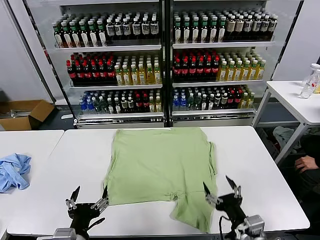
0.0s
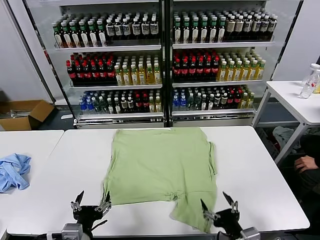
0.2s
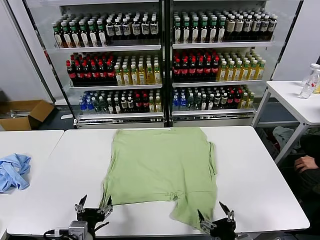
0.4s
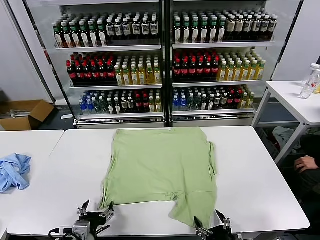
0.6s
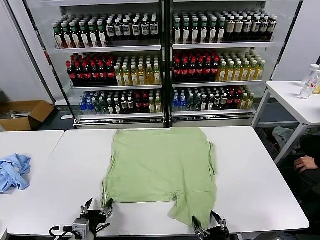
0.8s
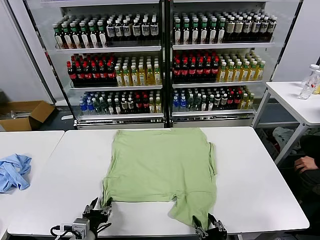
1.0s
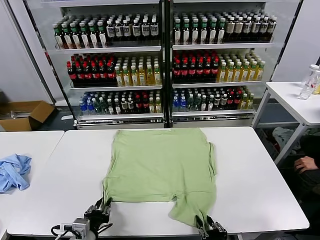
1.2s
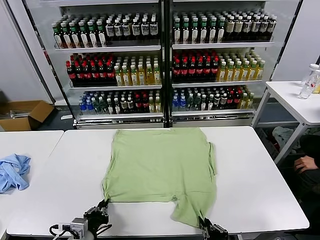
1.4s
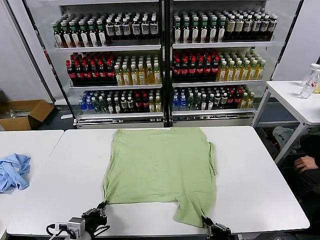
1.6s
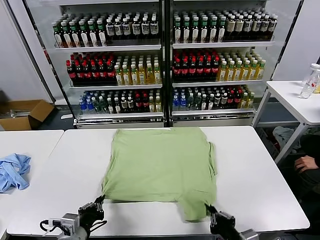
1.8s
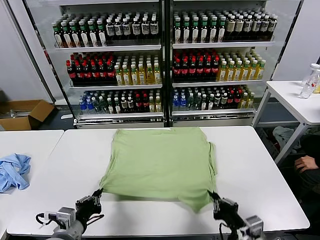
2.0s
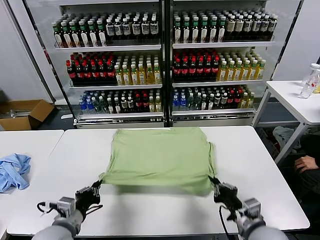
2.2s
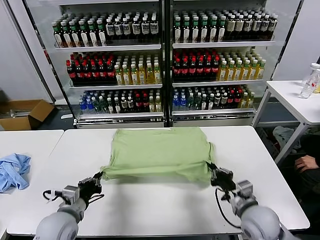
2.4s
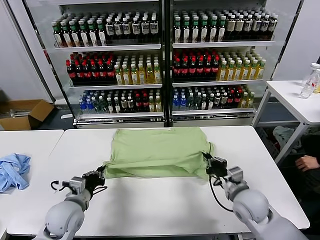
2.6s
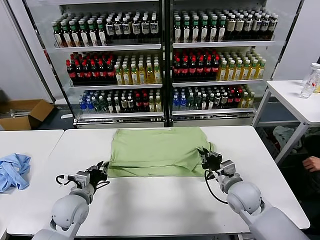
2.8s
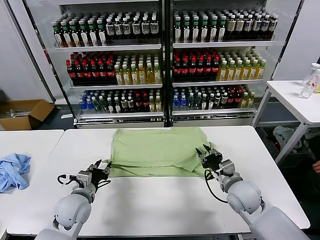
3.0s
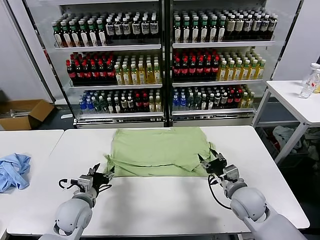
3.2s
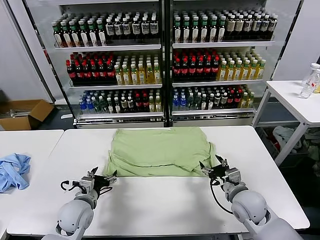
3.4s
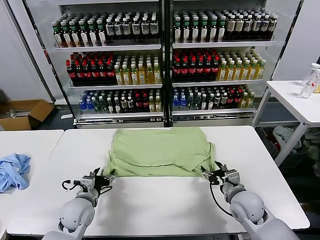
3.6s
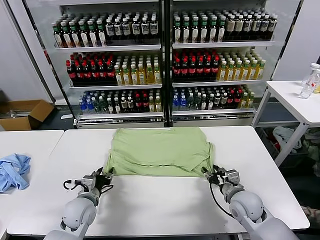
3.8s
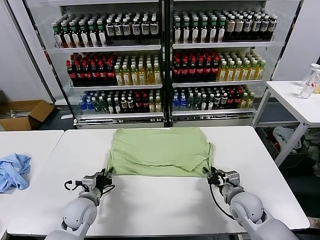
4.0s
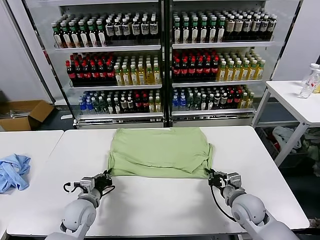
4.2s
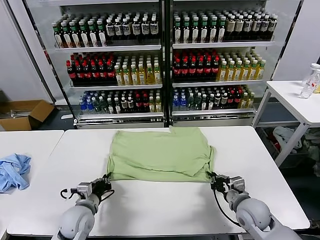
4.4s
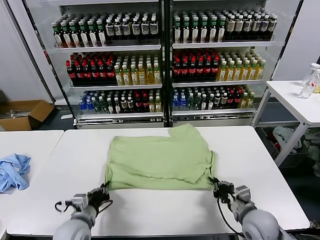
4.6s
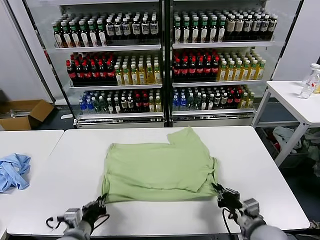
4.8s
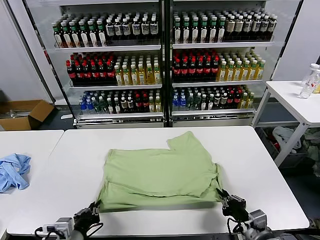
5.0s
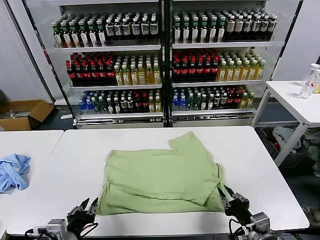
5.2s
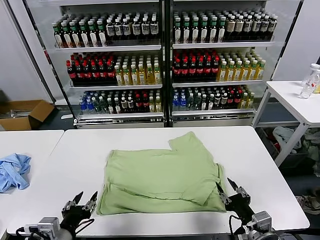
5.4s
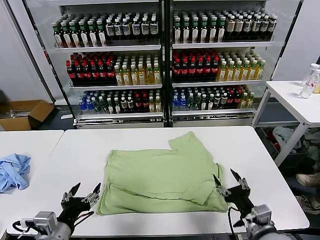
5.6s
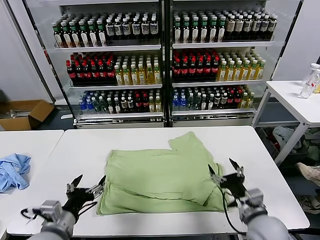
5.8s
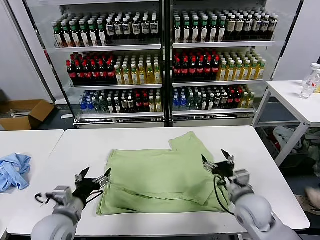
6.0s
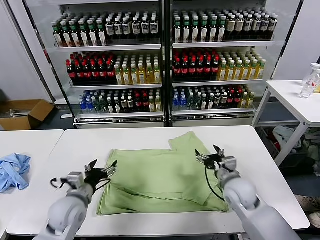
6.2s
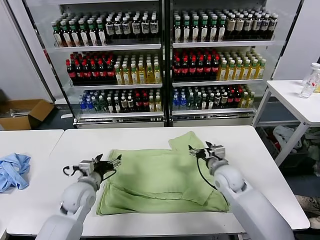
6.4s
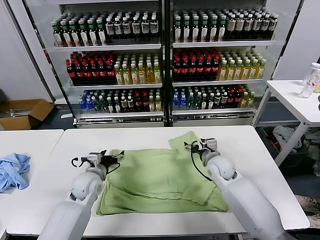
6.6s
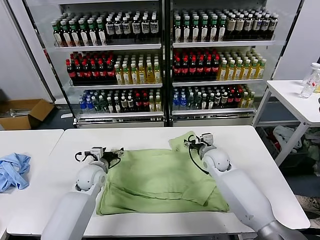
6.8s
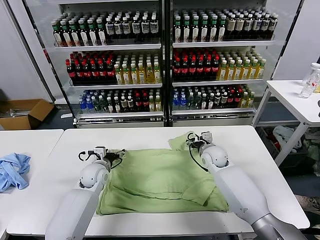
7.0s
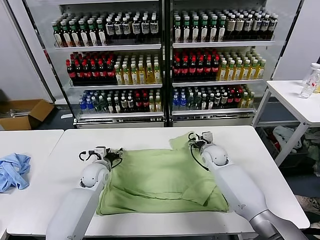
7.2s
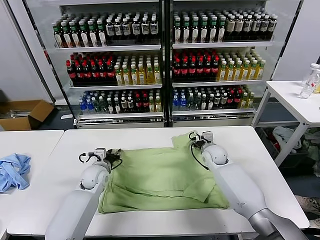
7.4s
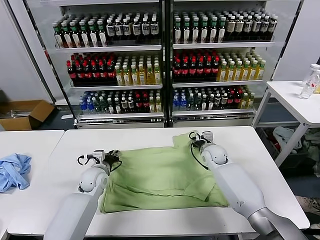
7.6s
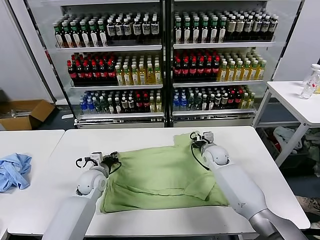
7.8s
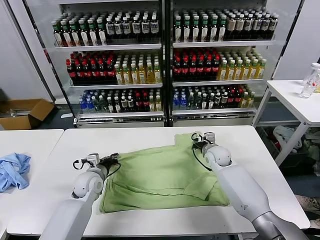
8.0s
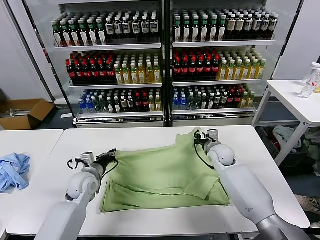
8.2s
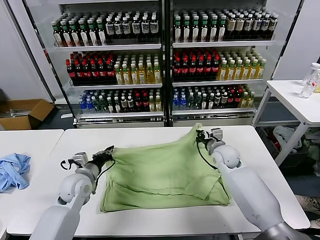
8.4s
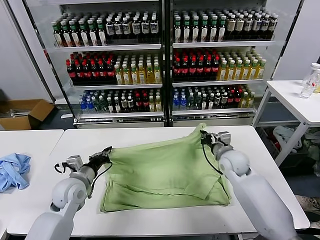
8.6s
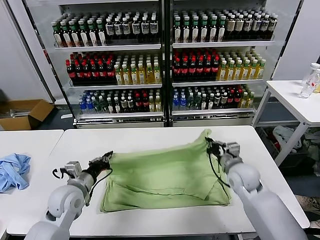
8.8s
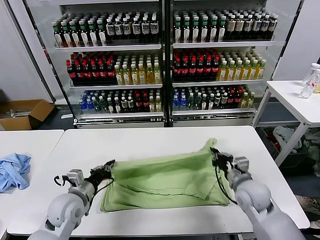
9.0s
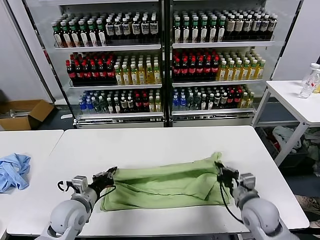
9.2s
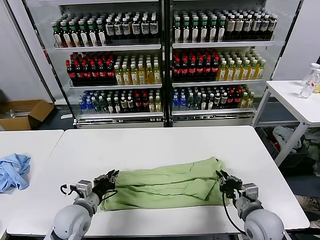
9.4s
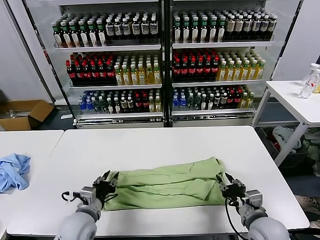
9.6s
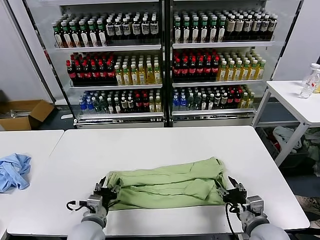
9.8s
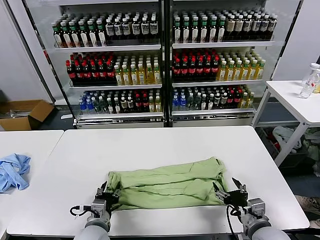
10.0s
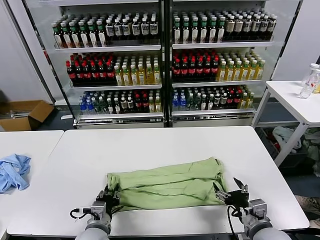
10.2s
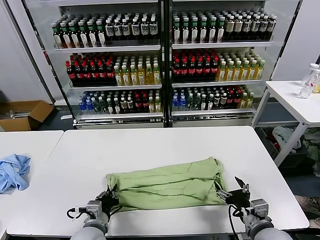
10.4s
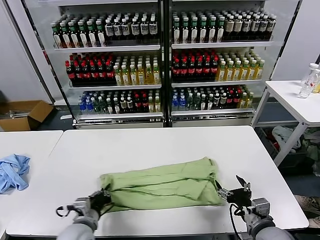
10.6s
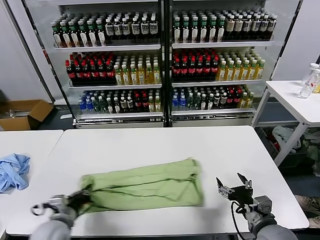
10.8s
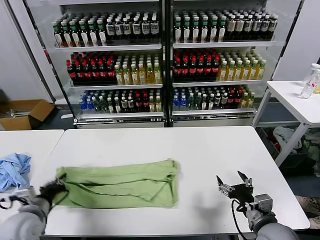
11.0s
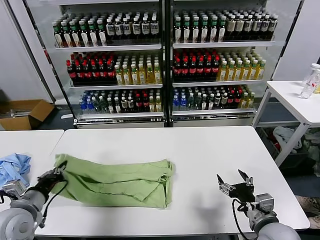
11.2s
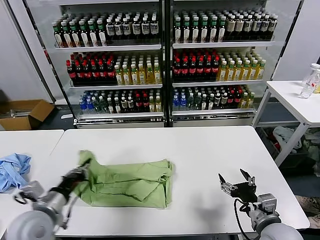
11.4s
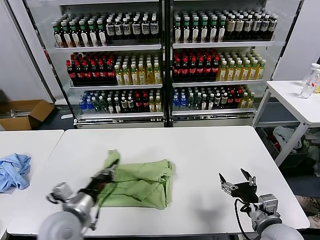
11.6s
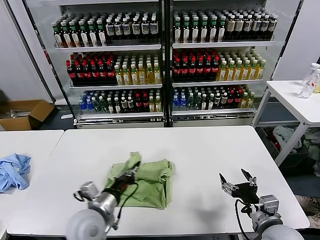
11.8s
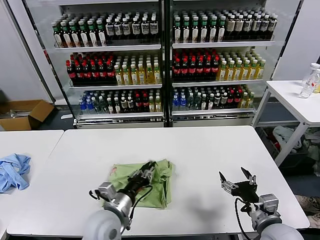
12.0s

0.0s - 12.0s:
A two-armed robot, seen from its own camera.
Task of the whole recording: fold and organize the clothes.
Step, 0.0s - 1.4s: use both grippers simultaneously to clamp the lower edge of the clothing fabric.
Step, 1.6s - 3.0s: use both grippers to drag the lower edge of the fabric forward and fold it over the upper edge.
Step, 3.2s - 5.0s: Drag the clothes downward with both gripper.
Step, 5.4s - 8.0s: use both grippers simultaneously to clamp the upper edge of the clothing fabric.
Step, 8.2s - 9.4s: use both grippers to drag the upper edge of the fabric backward and fold it over the lower edge.
Step, 9.6s - 10.4s: use the left gripper to clamp the left edge of the fabric.
1.6s - 3.0s: Both grippers move forward, roughly 20 cm. The right gripper opens up. Meanwhile the left gripper opens.
3.0s - 4.4s: The left gripper closes; the right gripper moves approximately 5 cm, and closes its fingers.
4.4s - 6.0s: The right gripper travels backward and back again, approximately 10 cm each way, and opens, while the left gripper travels upward by about 10 cm, goes backward and returns, about 15 cm each way, and opens its fingers.
6.0s - 7.6s: The left gripper shifts roughly 20 cm forward and downward, and closes. Meanwhile the right gripper moves forward, approximately 20 cm, and closes its fingers.
7.6s - 9.0s: The left gripper travels backward and upward by roughly 15 cm. Meanwhile the right gripper moves backward, some 20 cm, and closes up.
9.0s - 10.4s: The left gripper heads backward, to the right and downward, covering approximately 10 cm, and opens, then closes again. The right gripper goes approximately 10 cm backward, and opens.
10.4s - 12.0s: The left gripper travels upward by some 5 cm, and goes to the left and returns, roughly 15 cm each way.

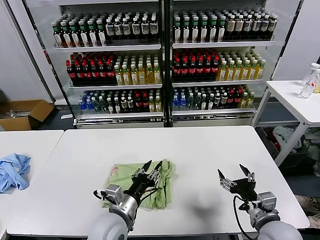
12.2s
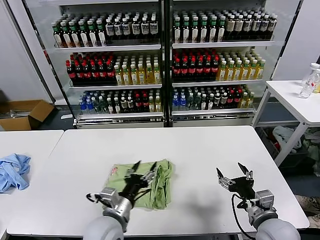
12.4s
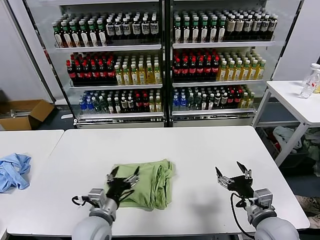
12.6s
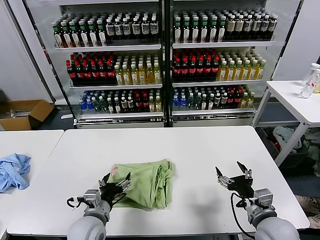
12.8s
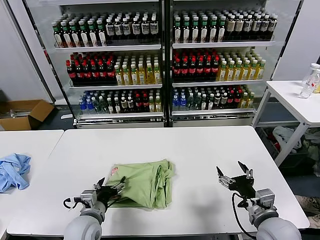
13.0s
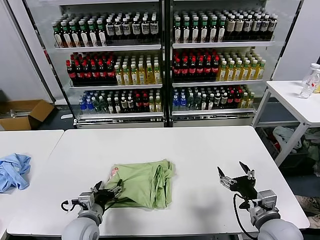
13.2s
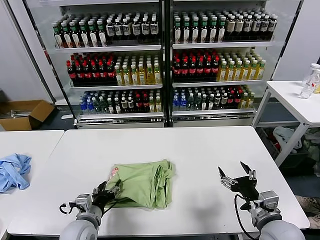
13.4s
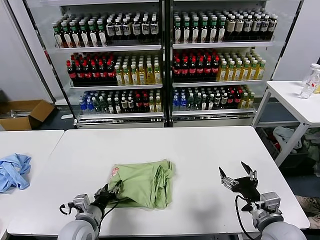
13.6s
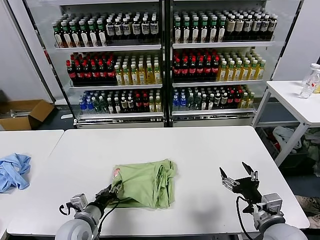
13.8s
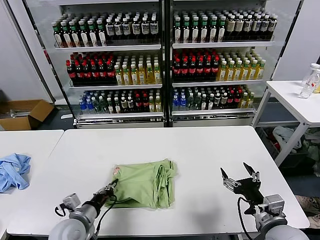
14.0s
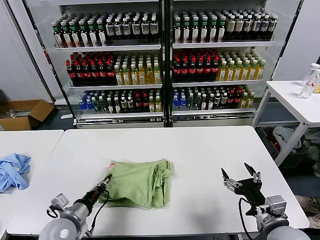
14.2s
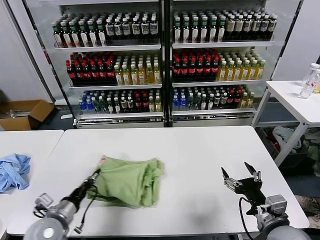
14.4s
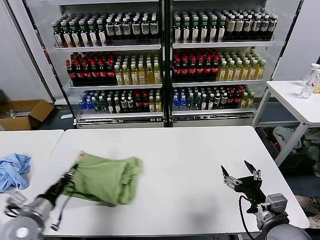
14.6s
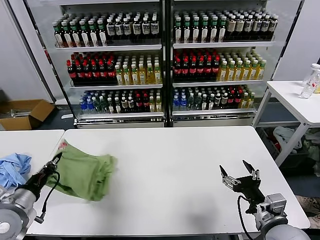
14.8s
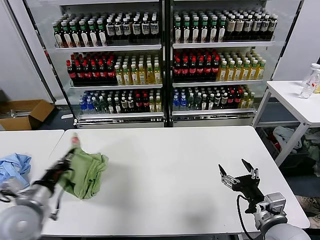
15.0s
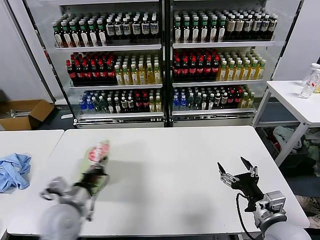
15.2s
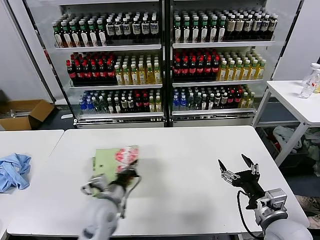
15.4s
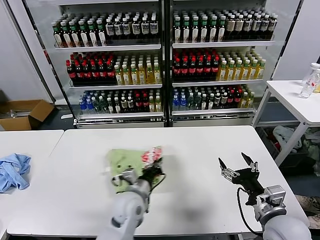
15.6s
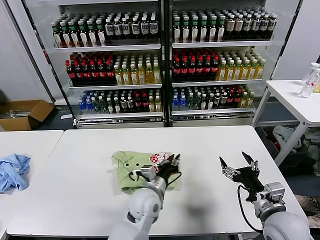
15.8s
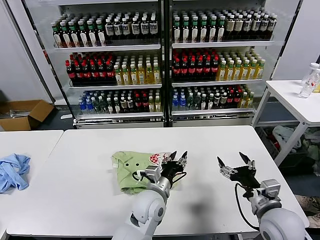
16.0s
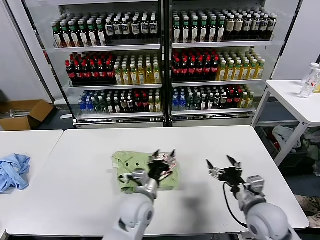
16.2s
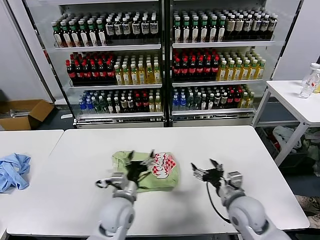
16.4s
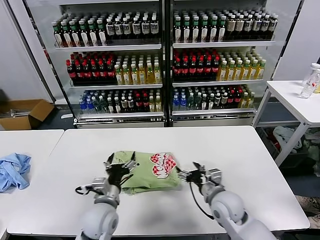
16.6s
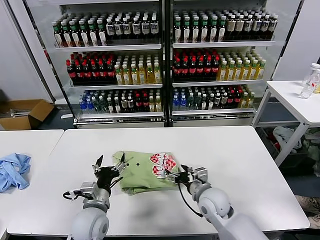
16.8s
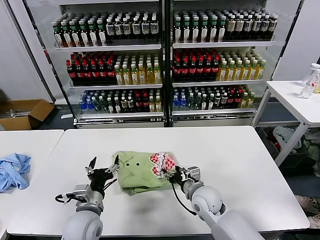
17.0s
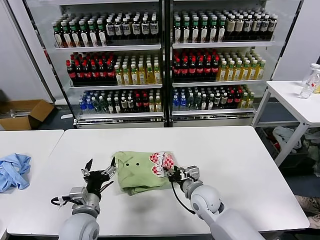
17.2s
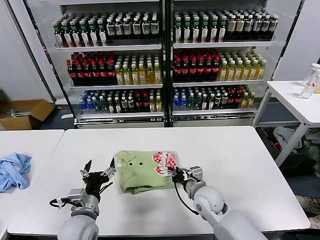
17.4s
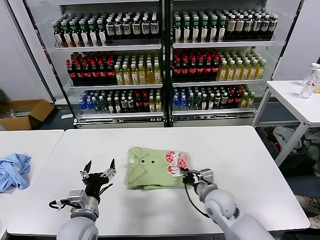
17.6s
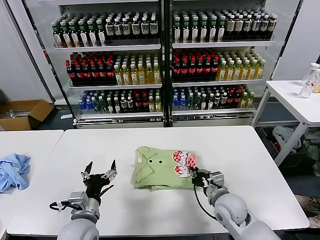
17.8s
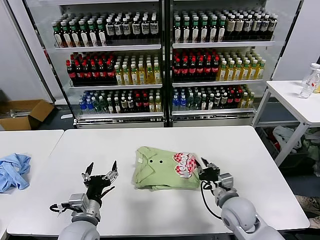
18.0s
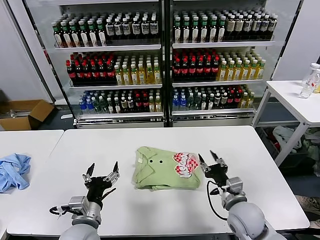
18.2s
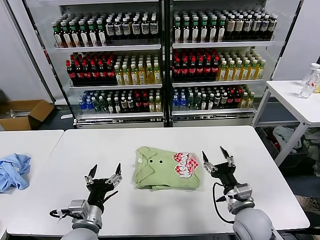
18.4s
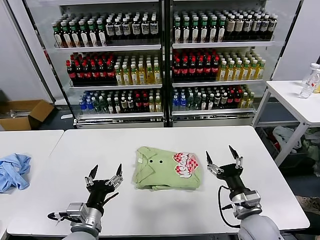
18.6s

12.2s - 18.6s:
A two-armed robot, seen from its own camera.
Task of the whole recording: fold and organize the clothes.
Step, 12.2s - 15.8s: Flip the folded clothes over with left gripper.
Step, 16.0s - 17.8s: Drag the clothes to the center of the table.
12.2s - 13.8s: The left gripper moves to the left and downward, some 15 cm, and opens, then closes again.
13.8s - 15.4s: The left gripper shifts some 5 cm upward, moves some 15 cm to the left and comes back, and closes up.
15.4s - 17.0s: The left gripper goes to the right and returns, about 15 cm each way, and opens up, while the right gripper heads to the left, forward and downward, covering approximately 25 cm.
17.0s - 18.6s: The left gripper goes some 5 cm backward. Meanwhile the right gripper is displaced to the right and backward by approximately 15 cm, and closes, then opens again.

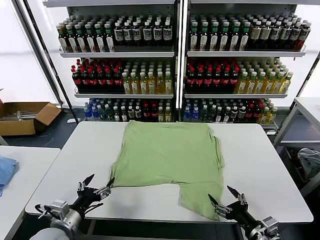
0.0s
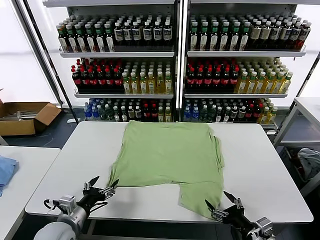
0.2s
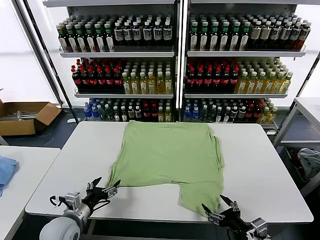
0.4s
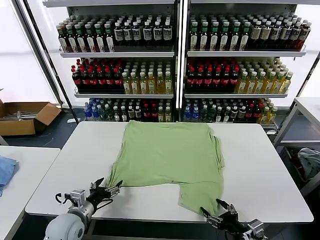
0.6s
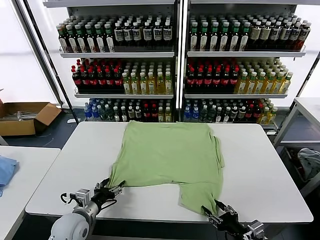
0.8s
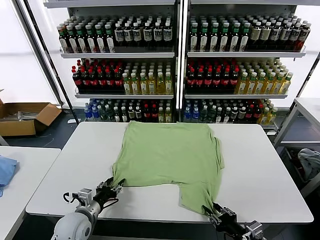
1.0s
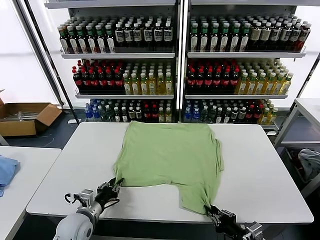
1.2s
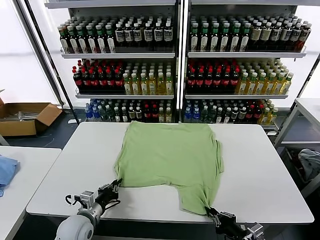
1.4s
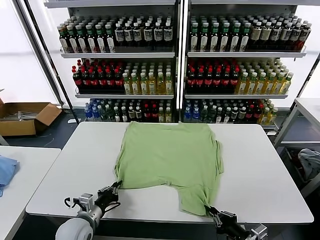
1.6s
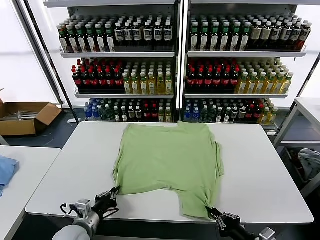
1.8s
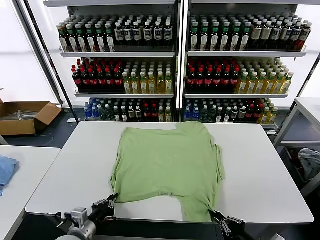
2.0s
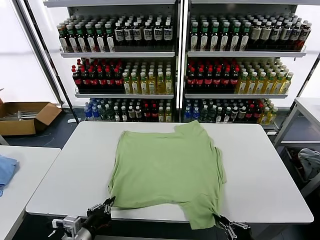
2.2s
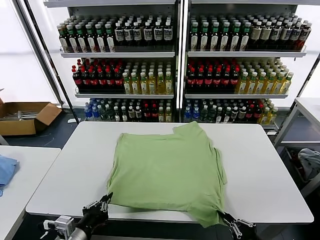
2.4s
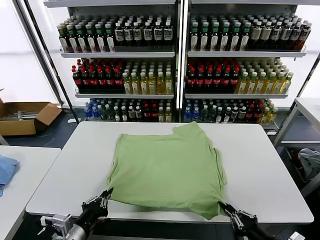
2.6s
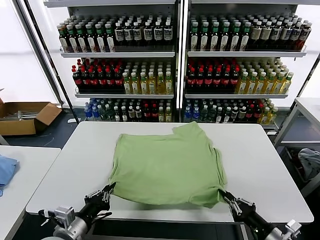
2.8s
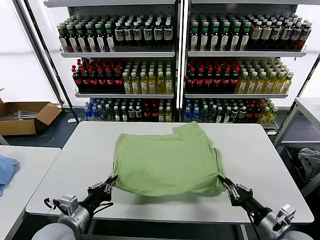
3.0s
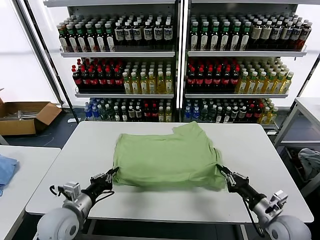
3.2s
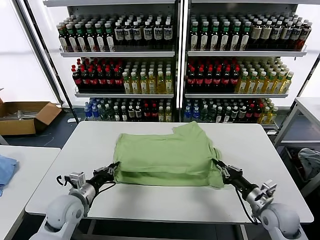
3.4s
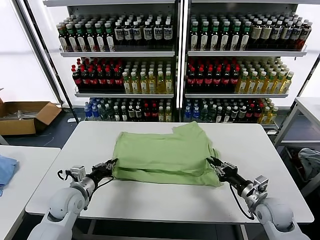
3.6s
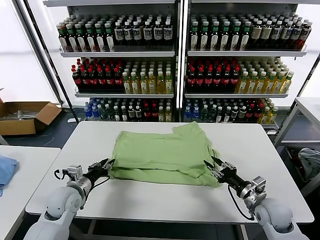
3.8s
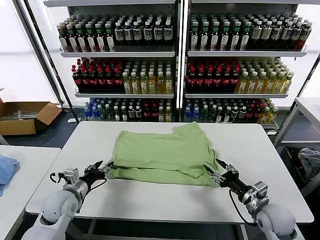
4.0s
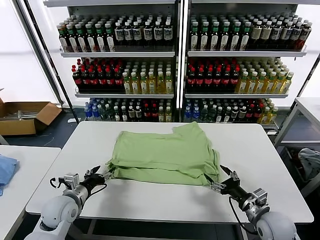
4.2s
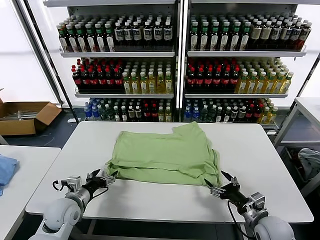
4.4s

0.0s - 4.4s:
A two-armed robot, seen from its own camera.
Task of the whole recording: fold and organize the clothes.
Step, 0.0s - 1.4s: use both grippers simultaneously to clamp the lower edge of the clothing fabric.
Step, 1.6s - 3.8s: use both grippers to drag the lower edge of the fabric forward and fold it over the upper edge.
1.4s - 3.0s: The right gripper goes about 5 cm forward, while the left gripper moves upward, some 10 cm.
3.0s - 4.4s: The right gripper moves roughly 5 cm, and opens its fingers, while the left gripper heads forward and downward, covering roughly 10 cm, and opens up.
